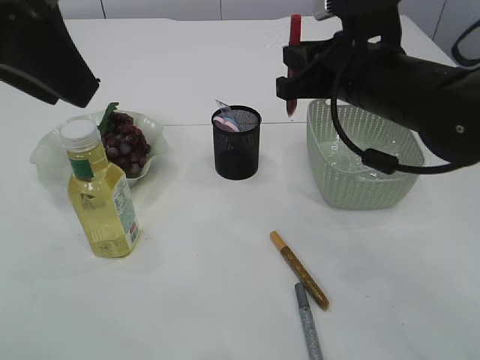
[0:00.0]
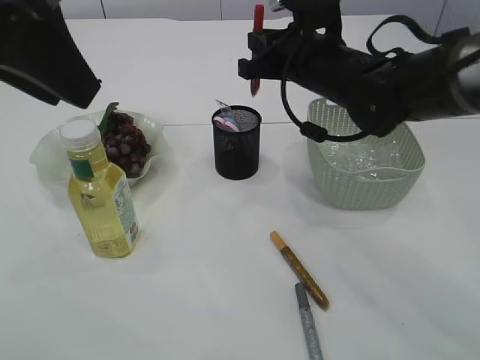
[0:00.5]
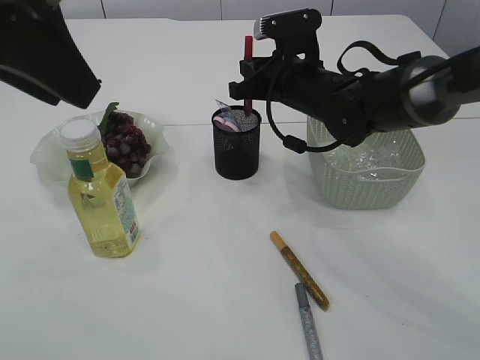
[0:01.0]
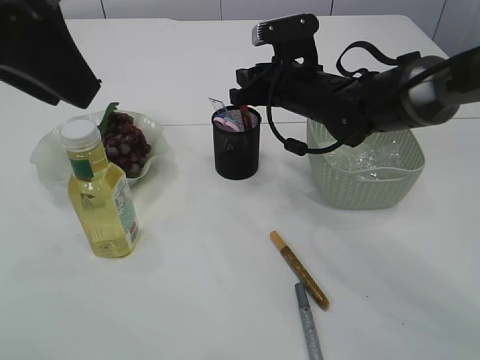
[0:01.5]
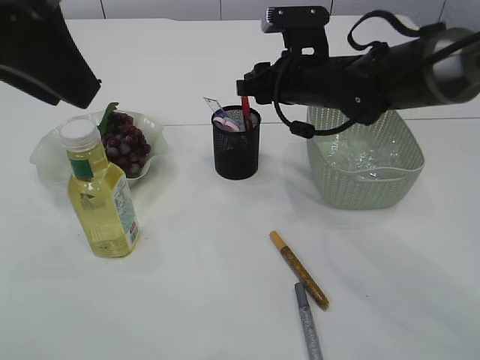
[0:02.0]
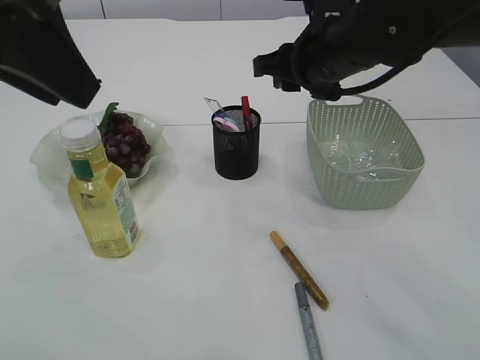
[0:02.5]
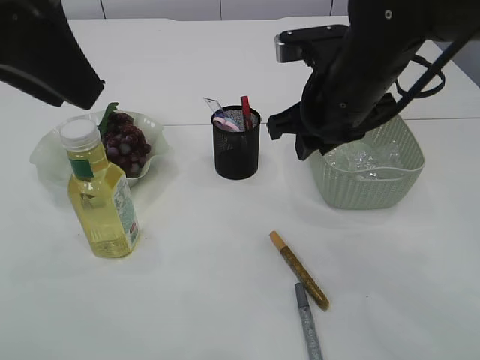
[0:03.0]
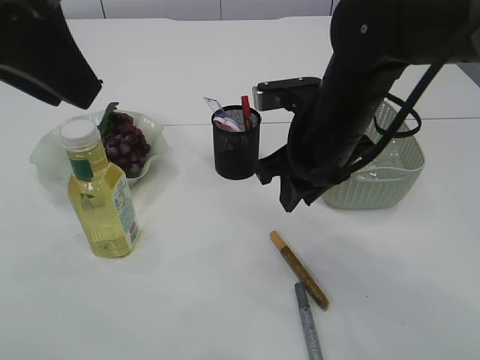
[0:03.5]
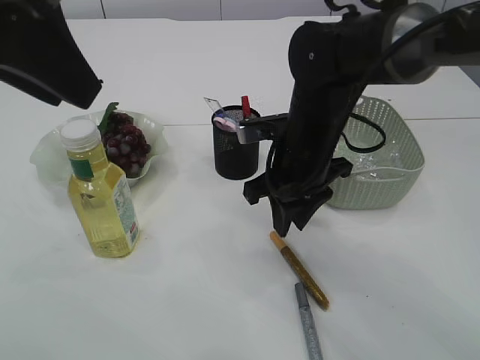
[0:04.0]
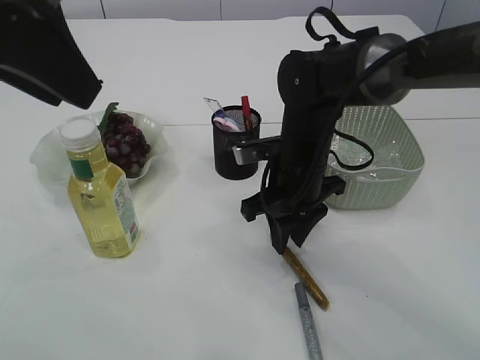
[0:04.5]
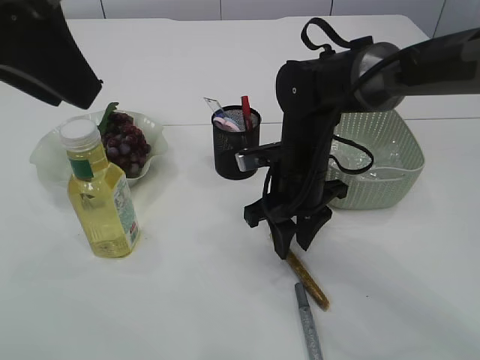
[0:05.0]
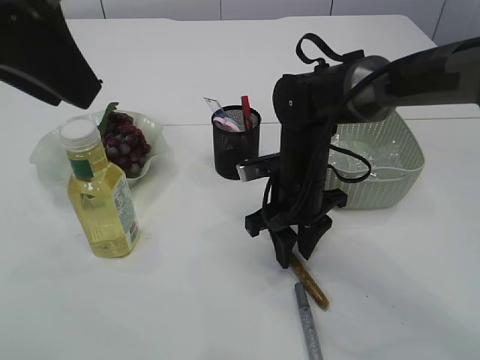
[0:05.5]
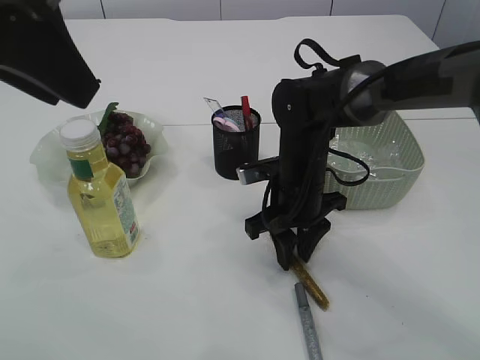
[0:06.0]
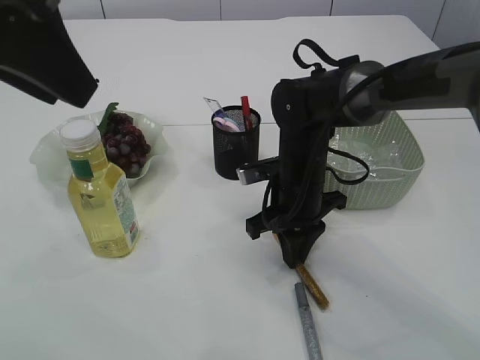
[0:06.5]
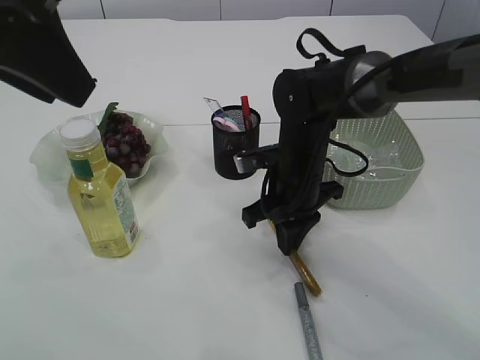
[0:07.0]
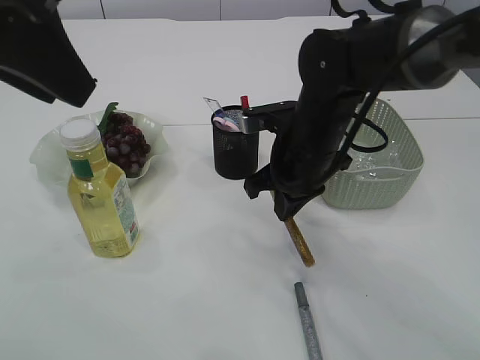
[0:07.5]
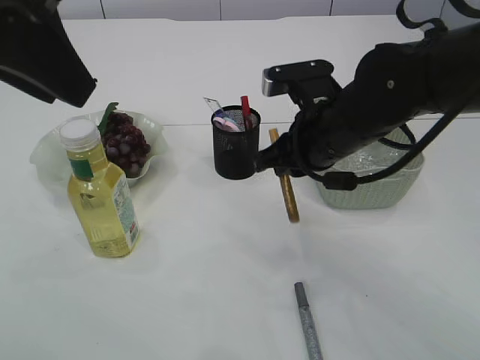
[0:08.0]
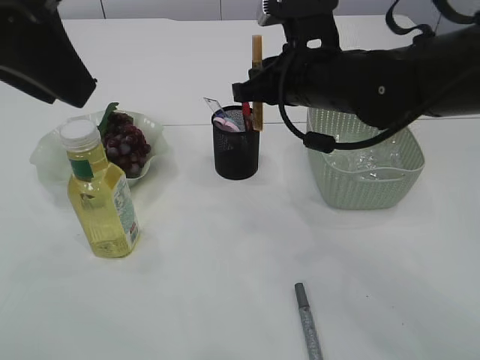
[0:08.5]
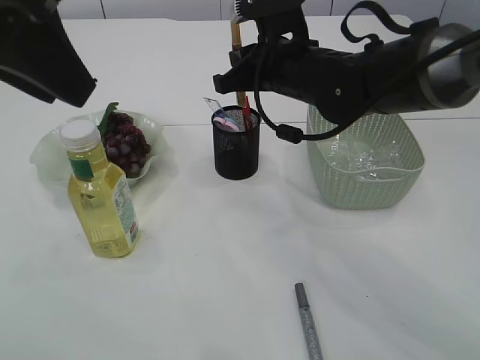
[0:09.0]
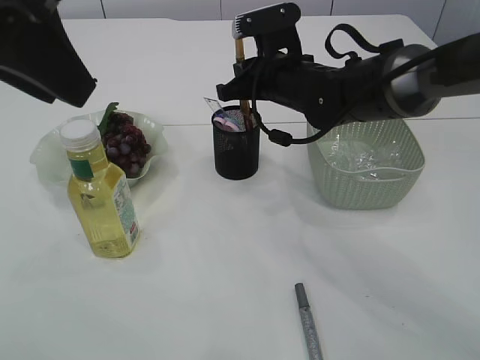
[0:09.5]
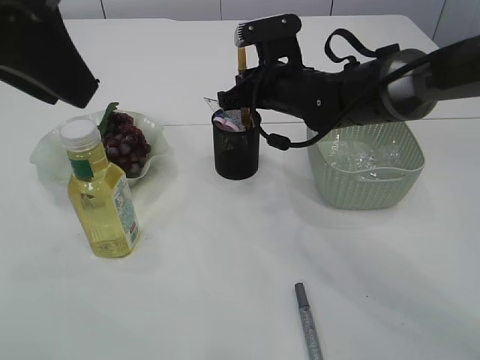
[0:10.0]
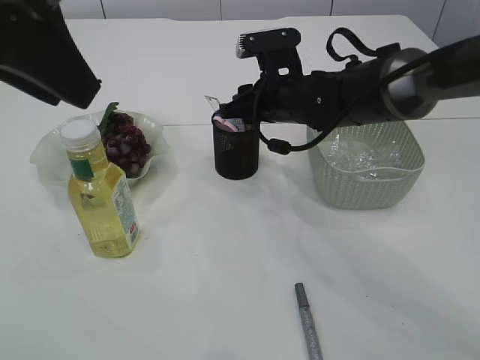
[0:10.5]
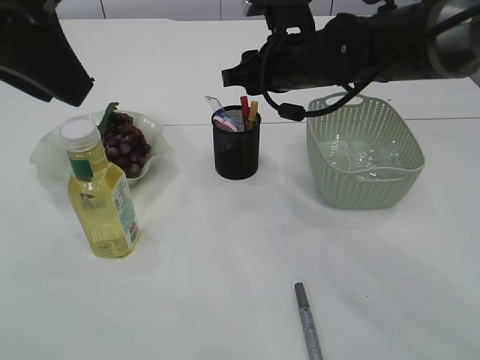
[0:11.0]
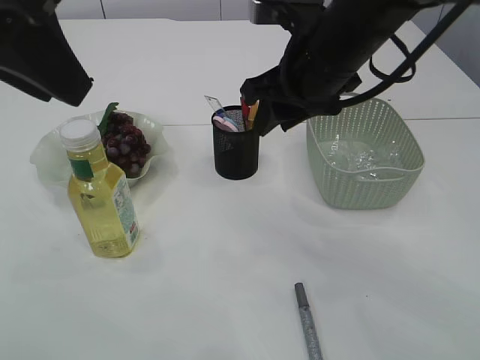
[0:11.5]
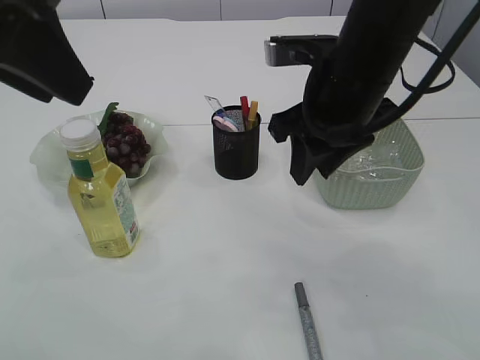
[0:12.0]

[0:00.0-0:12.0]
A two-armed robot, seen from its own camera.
Step, 0:00.0 to 0:02.0: place the red glue into the pen holder.
Step, 0:02.5 to 0:07.5: pick up the yellow glue.
Step, 0:08.0 to 0:11.0: place the yellow glue into the pen holder.
0:00.0 to 0:02.0: The right gripper moves forward, roughly 10 cm, and opens.
0:02.0 to 0:04.0: The right gripper heads backward, covering some 10 cm.
0:04.0 to 0:06.0: The right gripper heads downward, covering some 5 cm.
0:06.0 to 0:08.0: The right gripper shifts approximately 10 cm upward, and closes up.
0:08.0 to 0:10.0: The right gripper moves forward, approximately 10 cm.
0:10.0 to 0:12.0: The right gripper travels backward and upward by roughly 15 cm, and opens up.

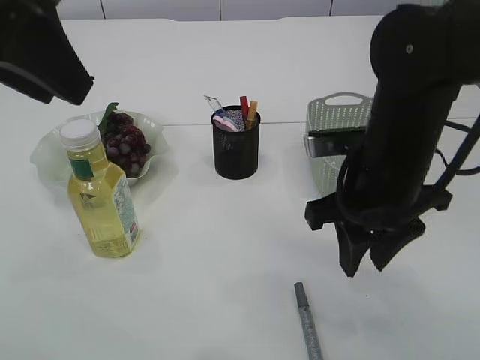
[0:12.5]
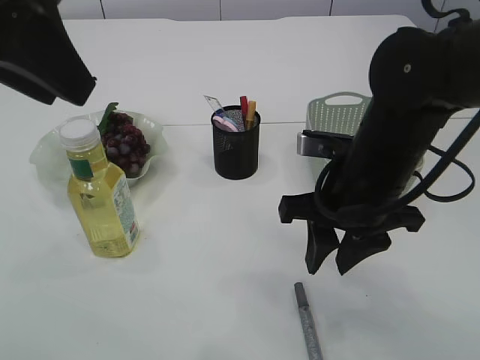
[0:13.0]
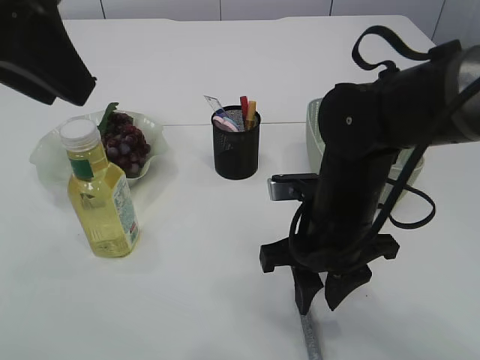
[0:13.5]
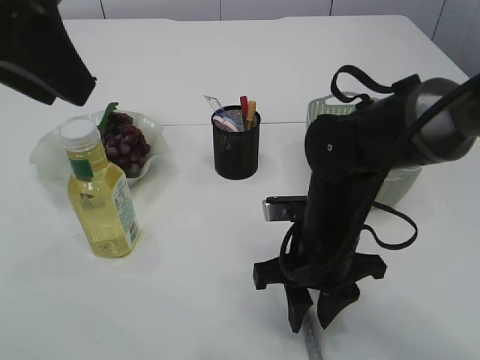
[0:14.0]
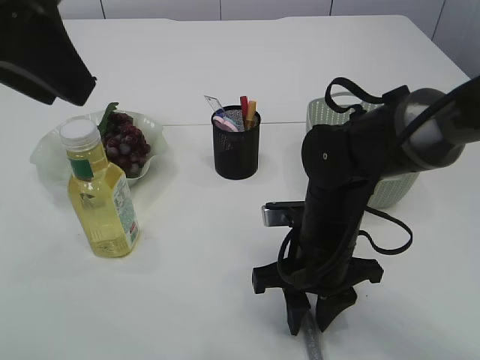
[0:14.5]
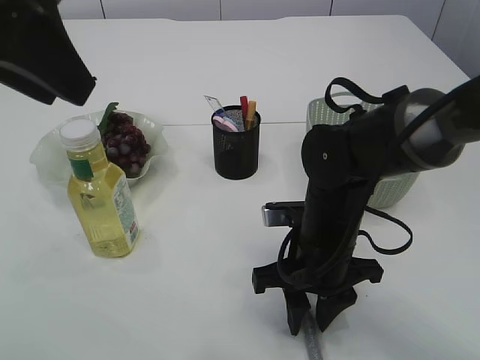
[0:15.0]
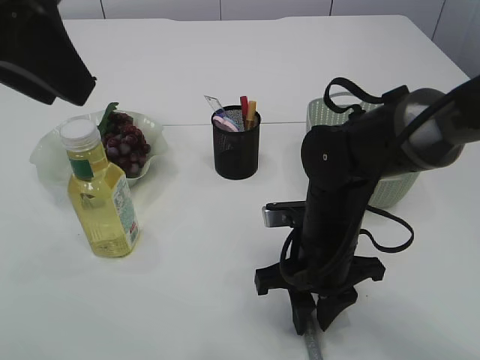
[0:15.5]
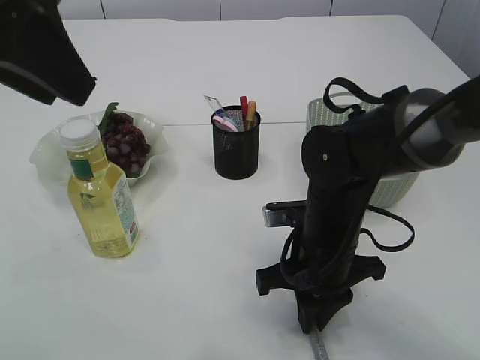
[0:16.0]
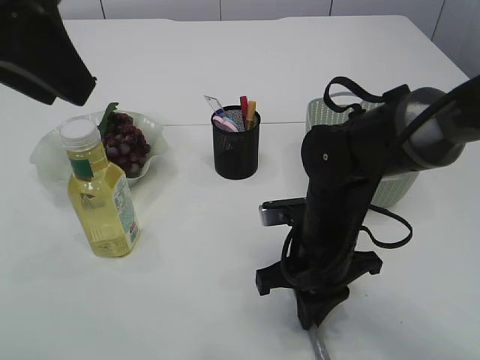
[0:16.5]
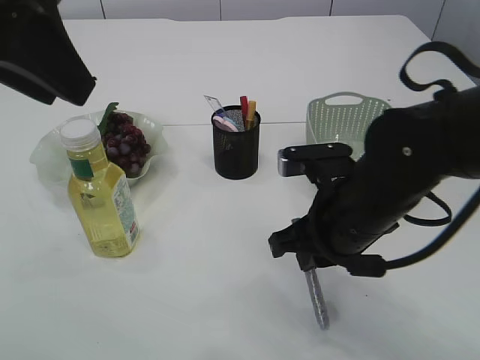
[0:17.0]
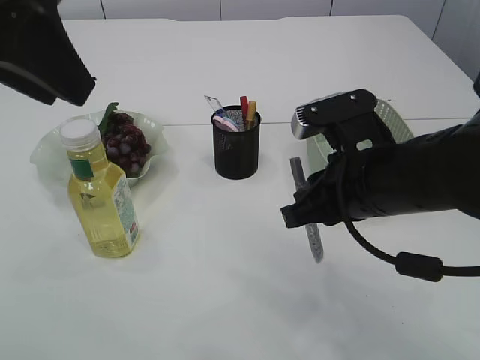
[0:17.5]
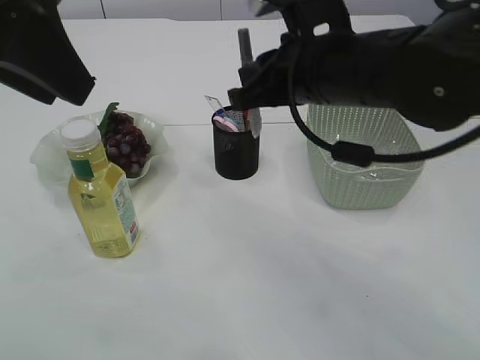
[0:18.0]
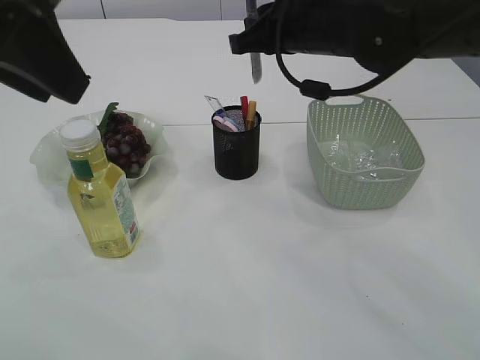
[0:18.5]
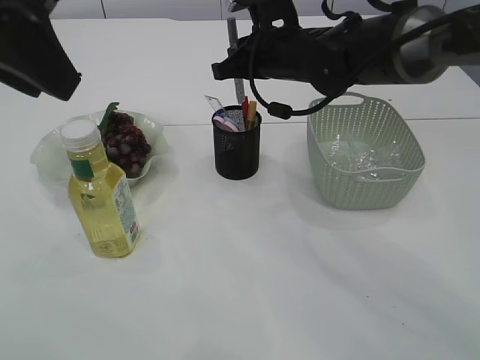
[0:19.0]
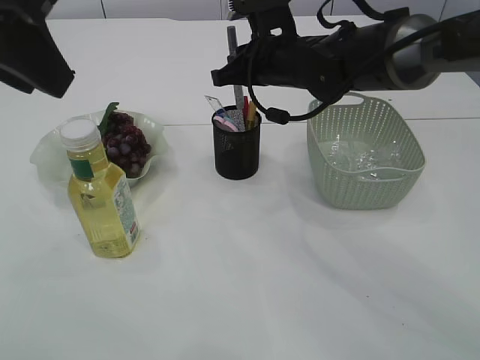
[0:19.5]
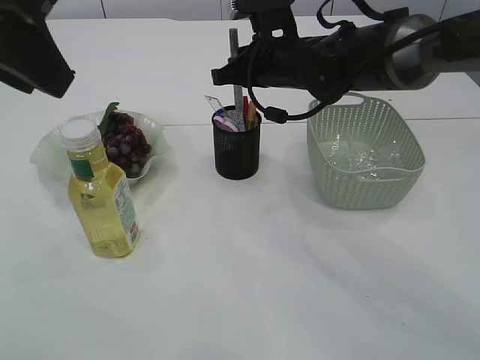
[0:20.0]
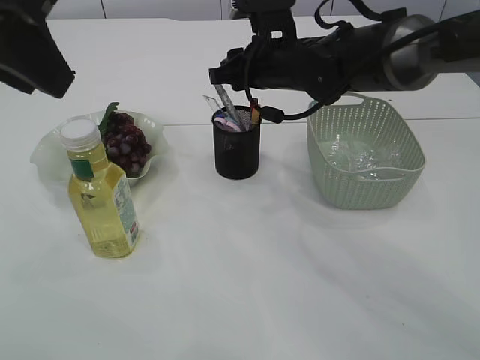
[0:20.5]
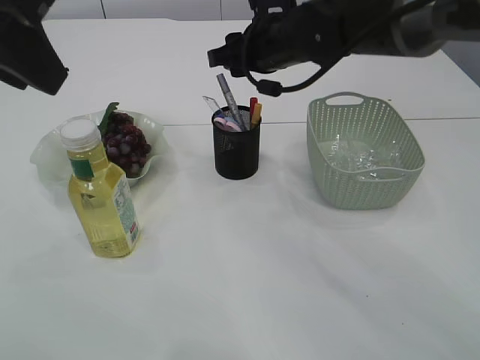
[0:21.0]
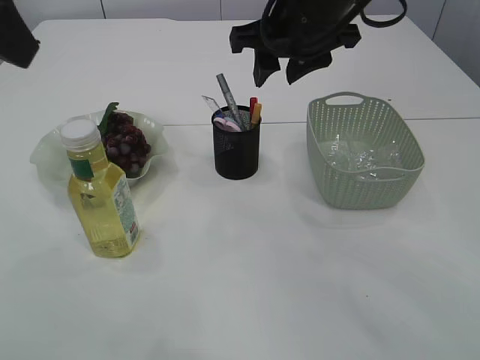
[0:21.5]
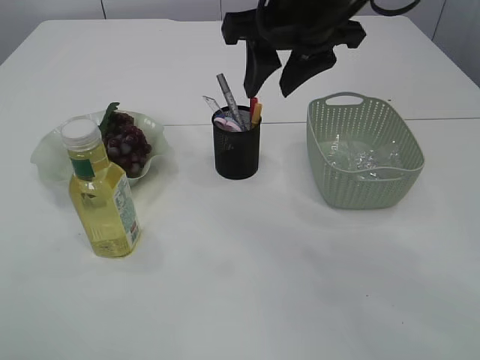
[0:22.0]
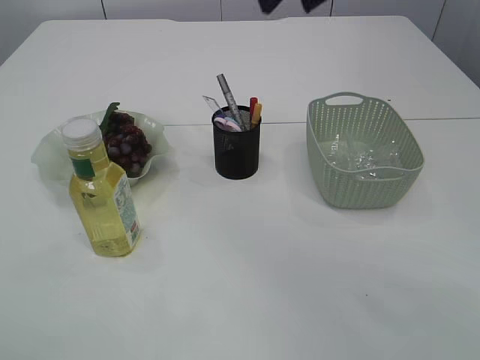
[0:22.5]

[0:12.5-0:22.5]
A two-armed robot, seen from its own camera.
Step, 0:12.5 to 0:17.0: pick up the silver glue.
Step, 0:17.5 to 0:21.0: place the silver glue into the pen holder.
0:12.5 to 0:14.5: The right gripper travels downward by approximately 10 cm.
0:14.5 to 0:16.5: The right gripper closes its fingers.
0:16.5 to 0:18.5: The right gripper moves upward and forward, about 20 cm.
0:18.5 to 0:20.5: The right gripper heads downward, covering about 5 cm, and opens.
0:20.5 to 0:22.5: The right gripper is displaced upward and backward by about 25 cm, while the left gripper shifts approximately 15 cm backward and to the left.

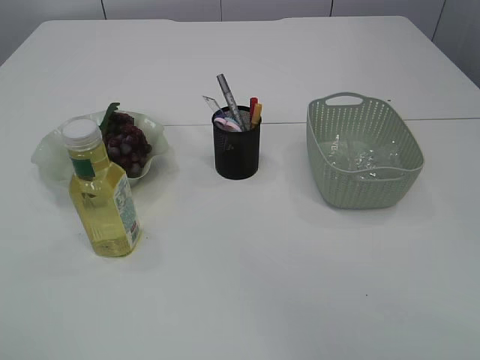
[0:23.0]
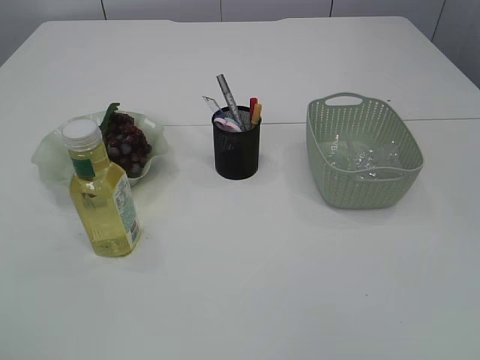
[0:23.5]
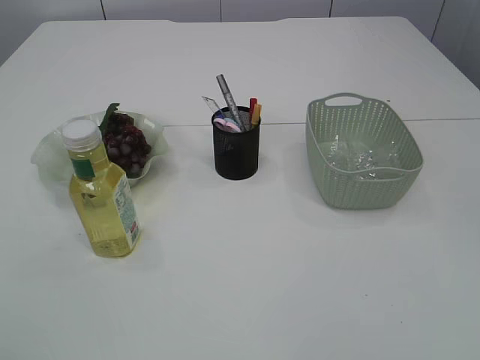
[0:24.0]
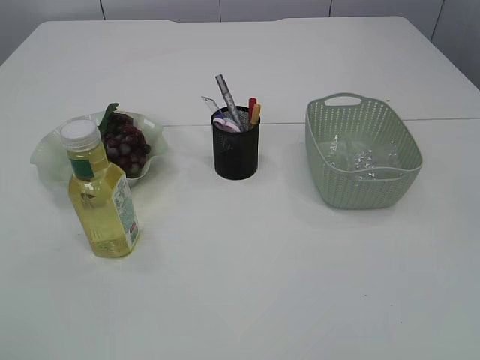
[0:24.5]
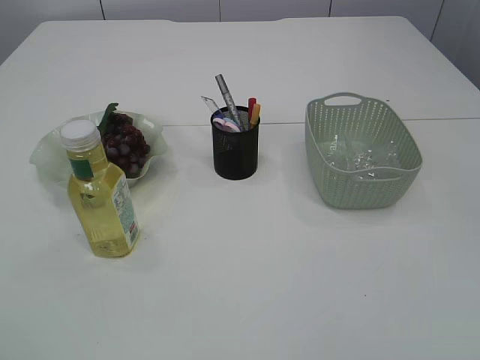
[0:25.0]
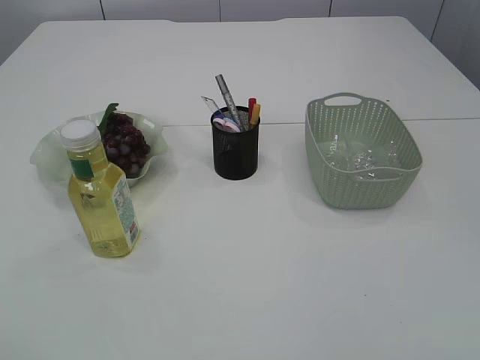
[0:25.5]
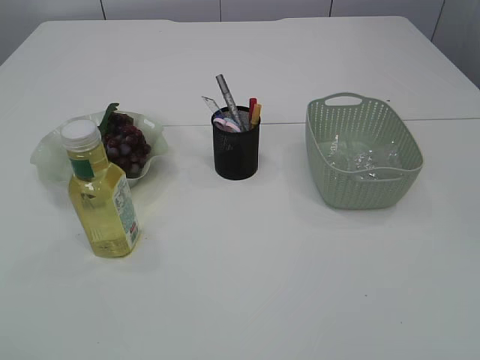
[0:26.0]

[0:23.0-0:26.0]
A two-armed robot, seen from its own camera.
0:23.0 to 0:24.5: The left gripper shifts some 10 cm downward.
